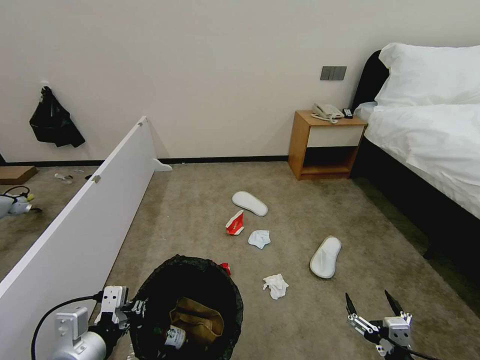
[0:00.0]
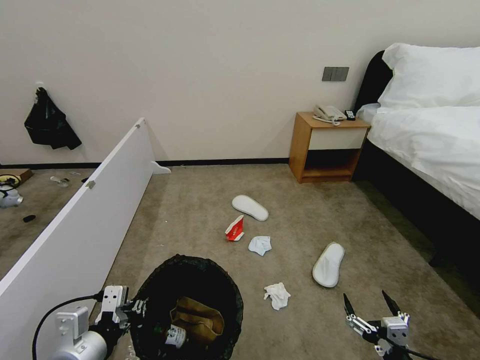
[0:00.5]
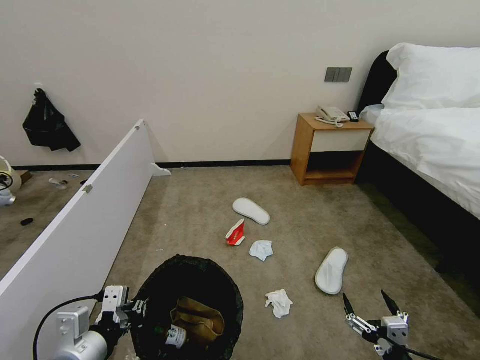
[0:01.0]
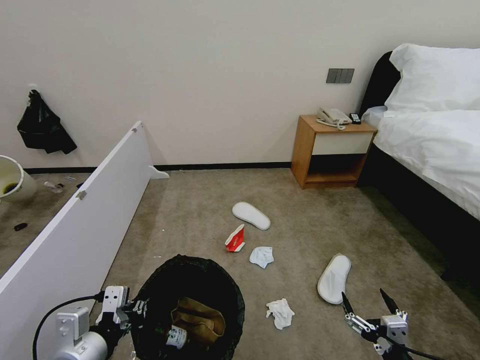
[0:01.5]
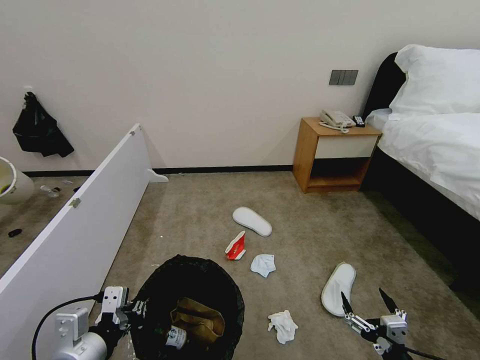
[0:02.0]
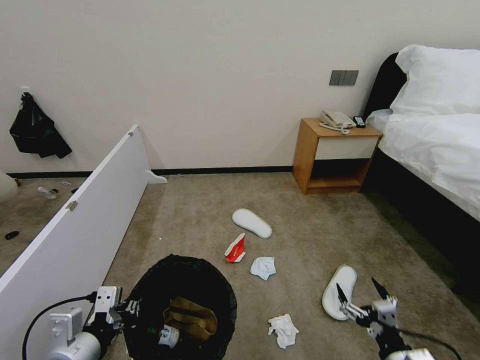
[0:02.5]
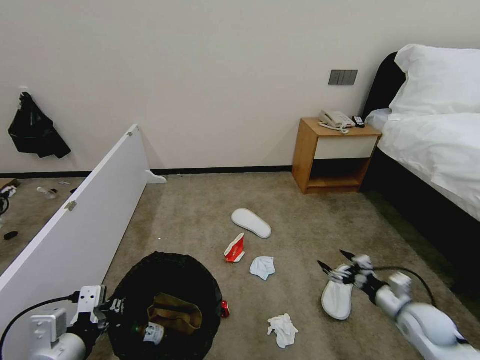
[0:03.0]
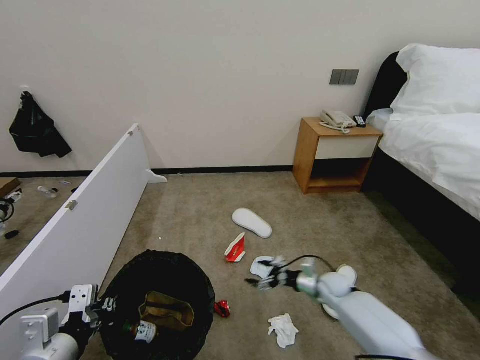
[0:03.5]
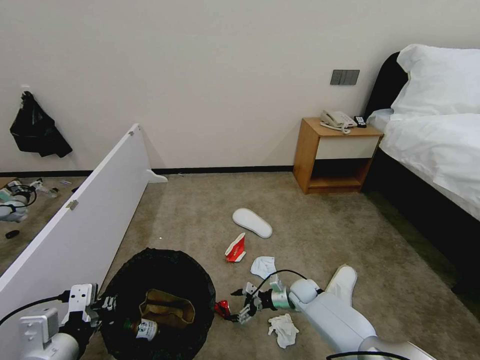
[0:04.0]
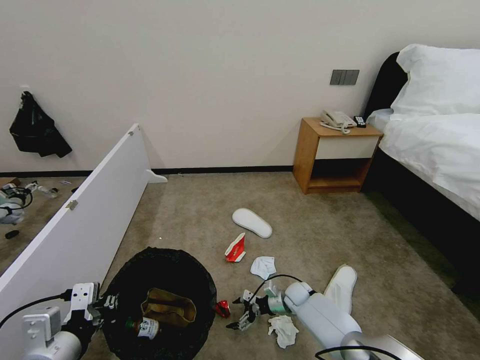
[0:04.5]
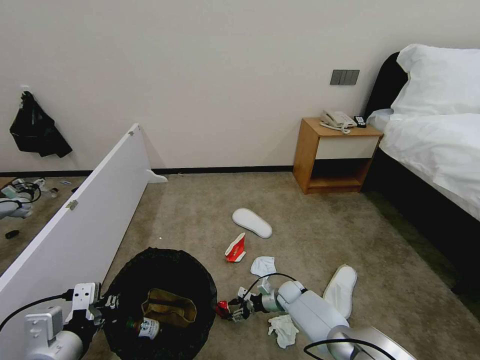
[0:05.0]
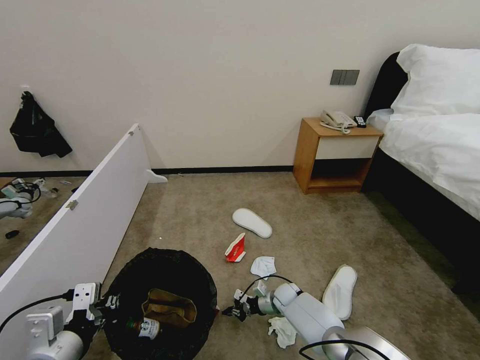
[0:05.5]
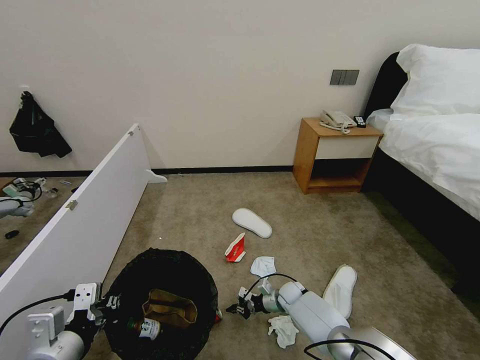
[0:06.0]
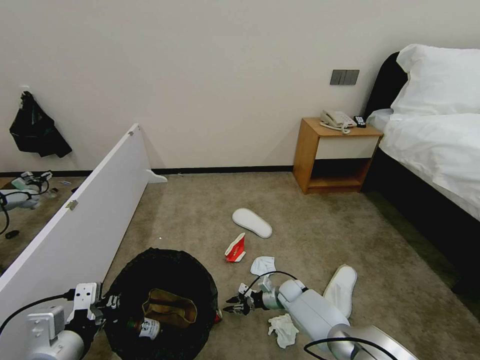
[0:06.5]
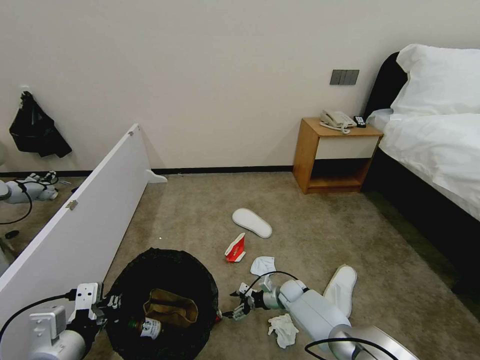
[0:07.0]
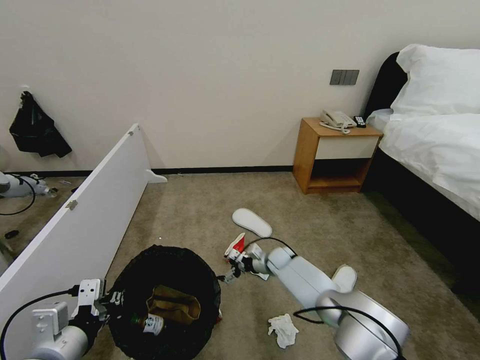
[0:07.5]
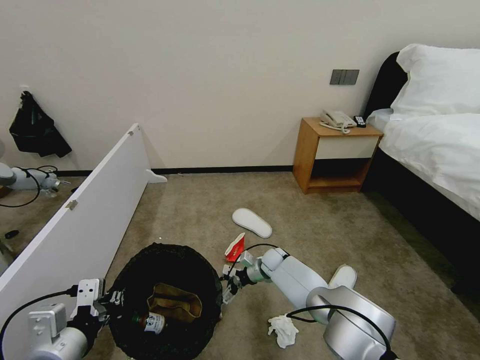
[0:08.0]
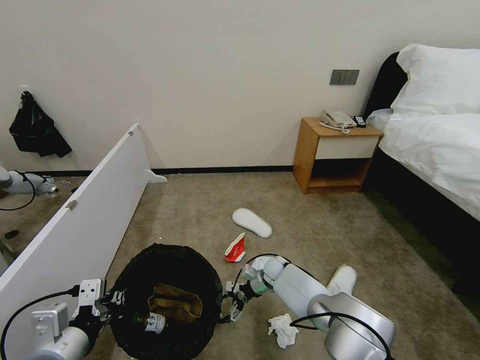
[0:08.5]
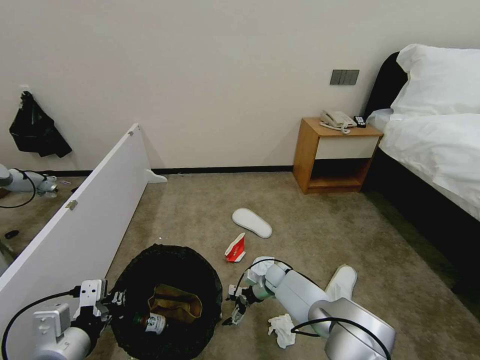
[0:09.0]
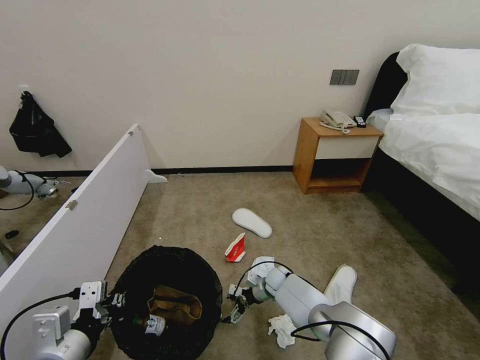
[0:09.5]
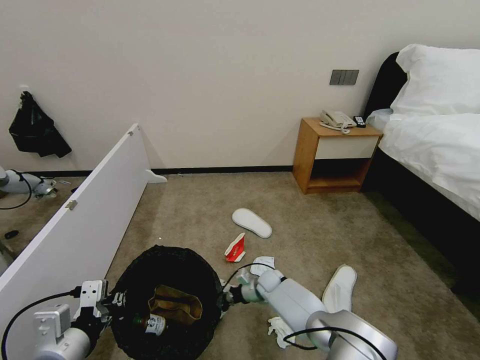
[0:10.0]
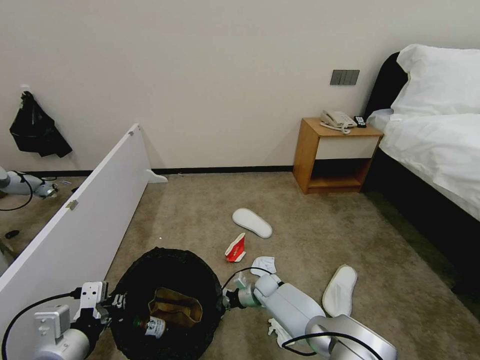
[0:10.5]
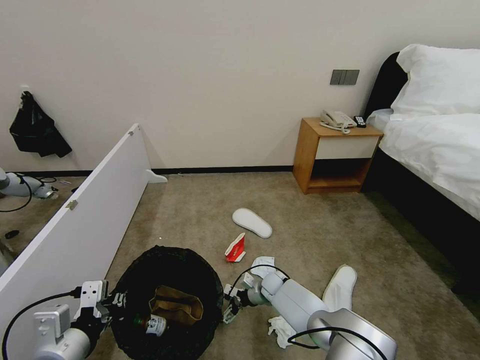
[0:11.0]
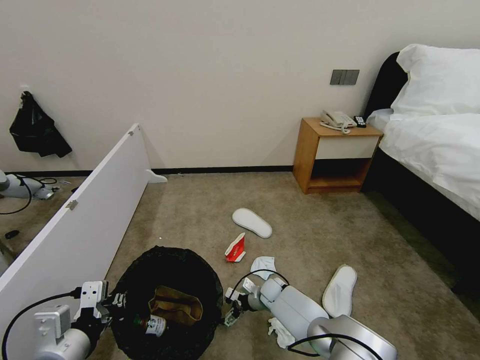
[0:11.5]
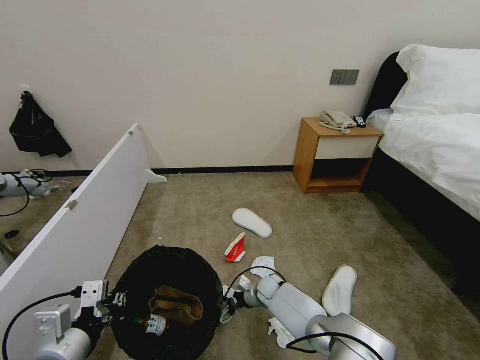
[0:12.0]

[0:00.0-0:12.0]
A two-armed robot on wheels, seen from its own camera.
Task of the whole recording: Pick up the trash bin, then pick up the garbage from the floor and place it into the trash bin.
0:00.0 to 0:02.0: Both grippers stay put.
0:02.0 to 0:04.0: The right gripper travels forward and downward by approximately 35 cm.
0:04.0 to 0:06.0: The right gripper closes.
0:06.0 to 0:08.0: The right gripper is displaced upward, forward and to the left by about 15 cm, and opens.
0:08.0 to 0:10.0: The right gripper goes about 5 cm backward and downward.
0:10.0 to 0:12.0: The grippers stay close to where they were, moving slightly.

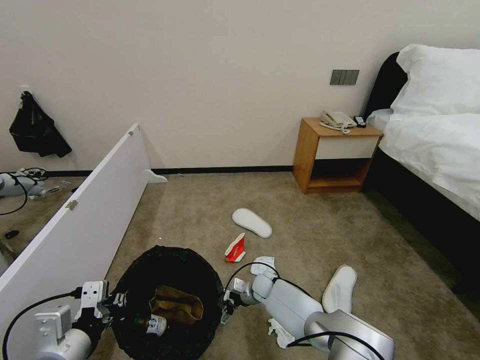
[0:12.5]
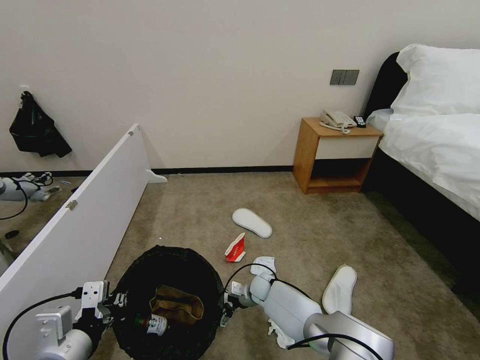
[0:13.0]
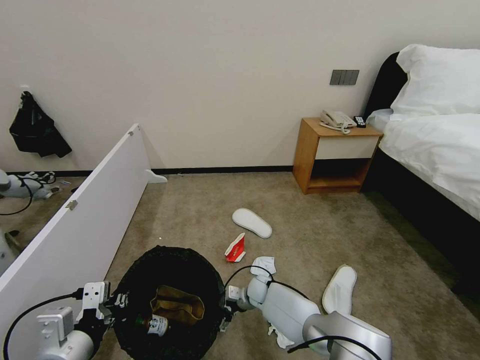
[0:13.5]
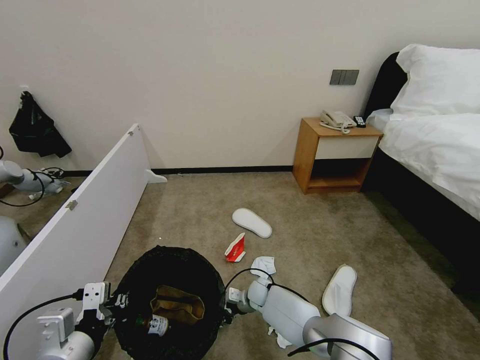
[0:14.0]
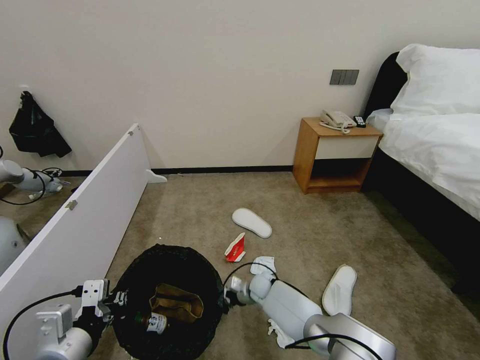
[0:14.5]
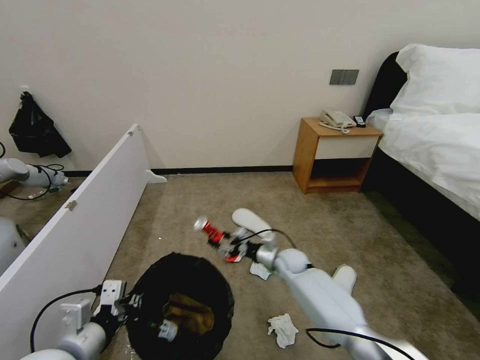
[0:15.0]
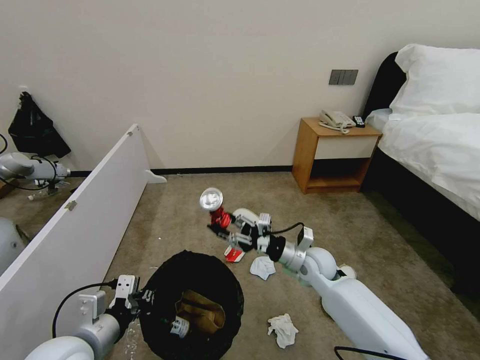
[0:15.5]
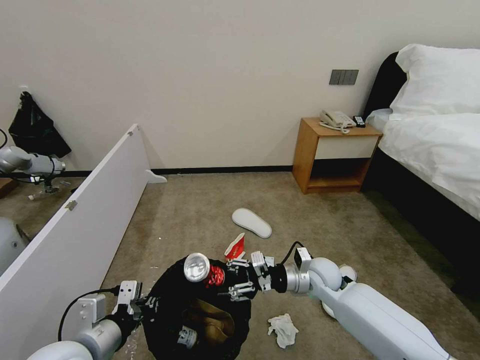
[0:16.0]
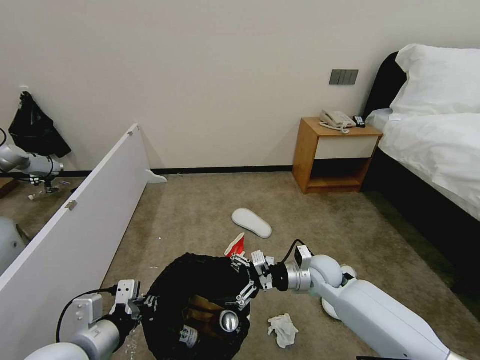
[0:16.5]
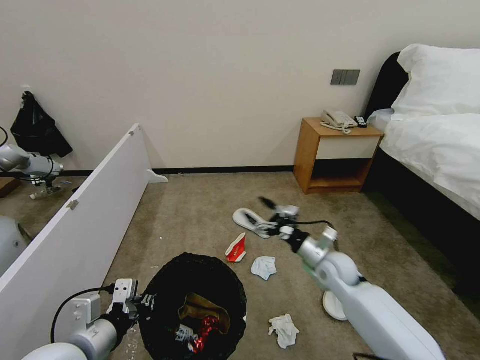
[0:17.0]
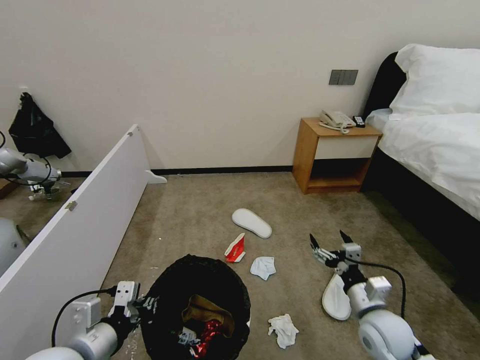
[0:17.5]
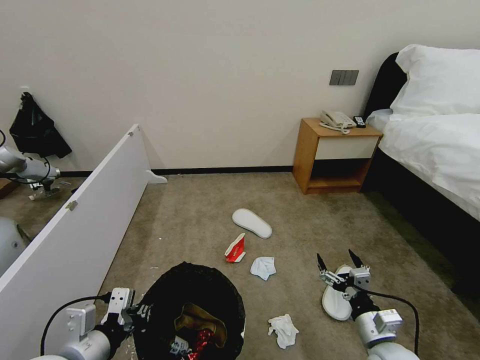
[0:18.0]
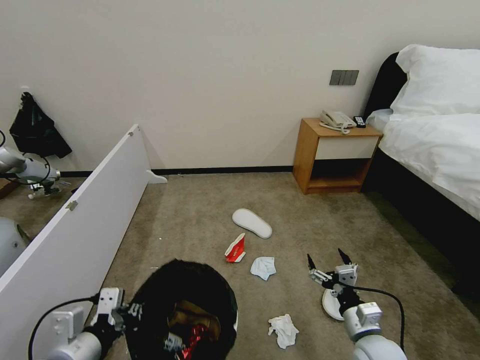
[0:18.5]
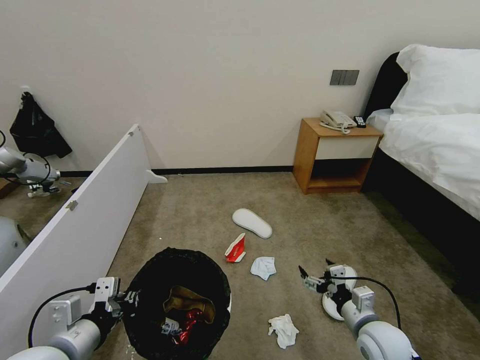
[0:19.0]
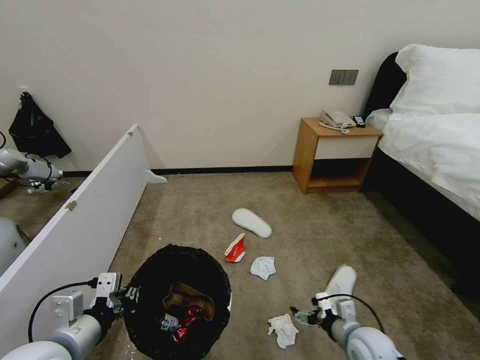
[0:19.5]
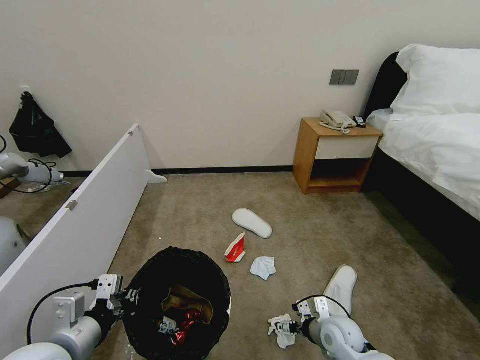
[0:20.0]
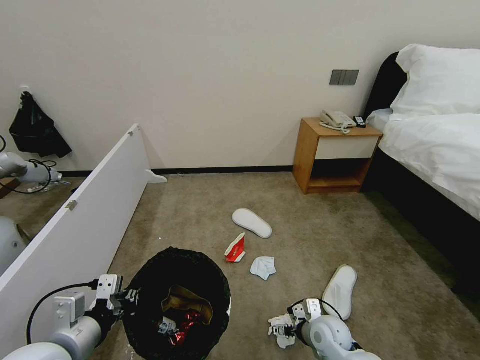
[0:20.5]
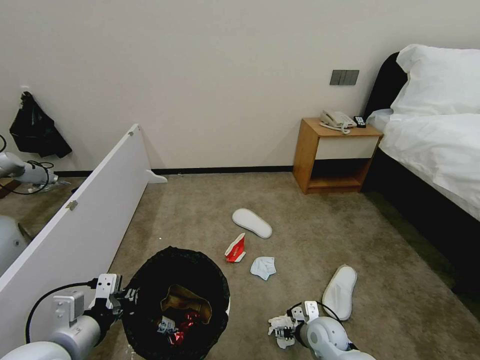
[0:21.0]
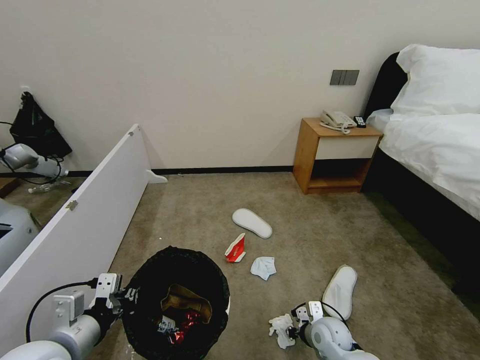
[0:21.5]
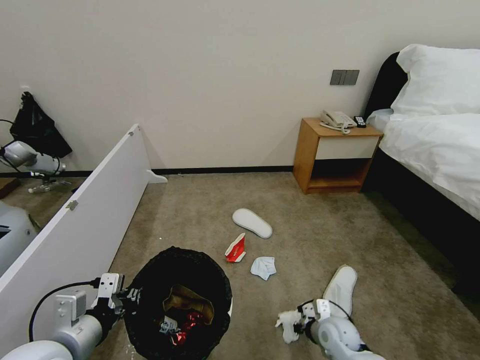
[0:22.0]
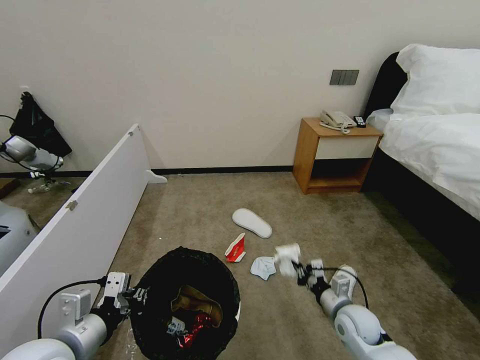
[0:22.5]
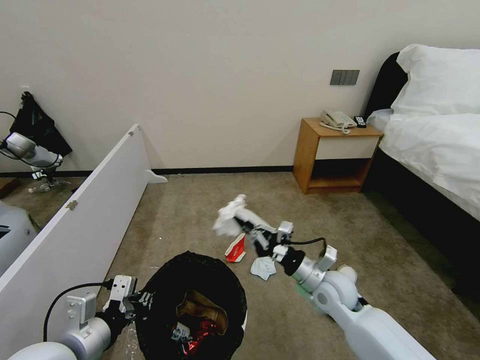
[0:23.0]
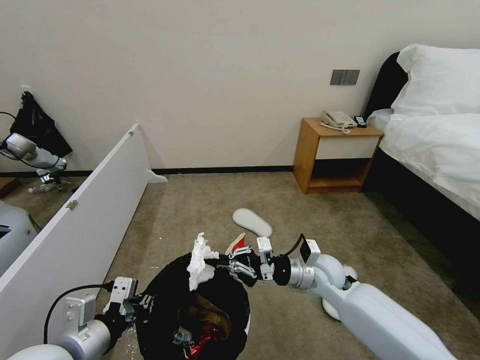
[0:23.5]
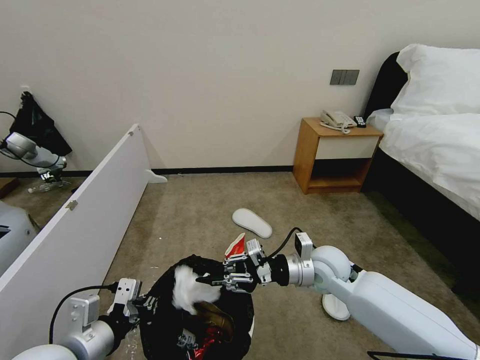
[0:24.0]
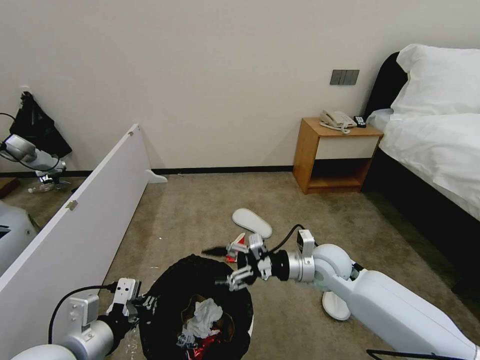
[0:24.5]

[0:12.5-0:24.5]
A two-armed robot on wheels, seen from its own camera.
Task of the whole recording: Pick up the trash bin, then pick up the garbage from the floor and place it into the trash bin.
0:12.5 to 0:14.5: The right gripper closes.
0:14.5 to 0:16.5: The right gripper goes about 20 cm upward and to the right, and opens up.
0:16.5 to 0:18.5: The right gripper shifts about 20 cm backward and to the right.
0:18.5 to 0:20.5: The right gripper shifts roughly 10 cm forward, to the left and downward.
0:20.5 to 0:22.5: The right gripper shifts approximately 5 cm to the right, and closes up.
0:22.5 to 0:24.5: The right gripper moves upward, to the left and forward, some 20 cm, and opens up.

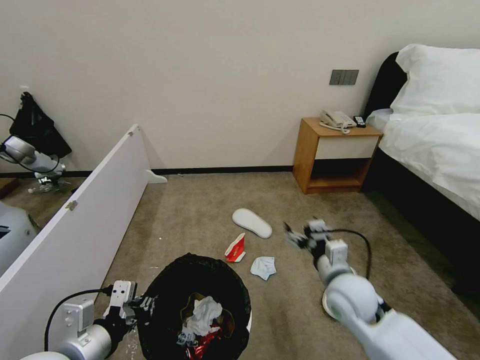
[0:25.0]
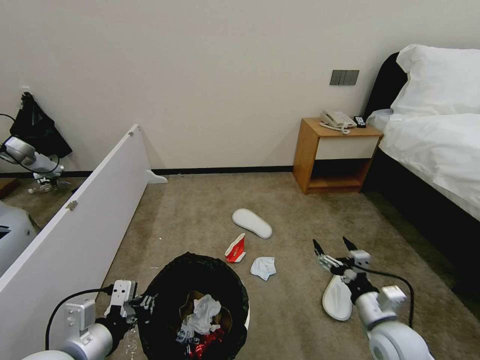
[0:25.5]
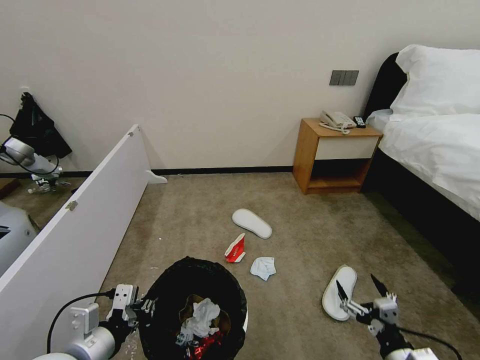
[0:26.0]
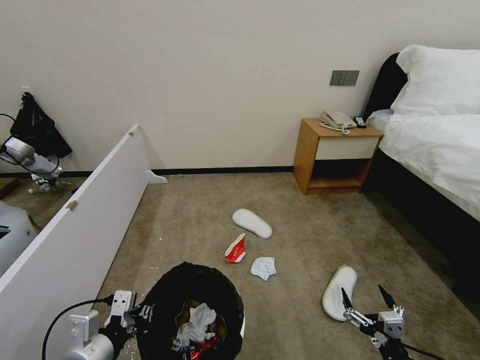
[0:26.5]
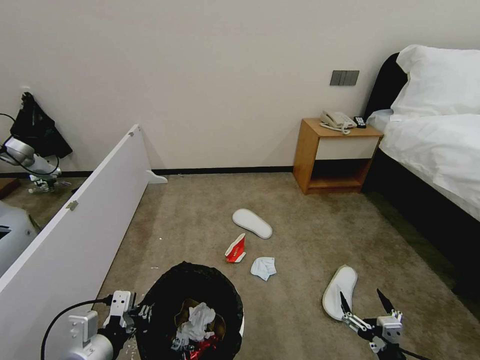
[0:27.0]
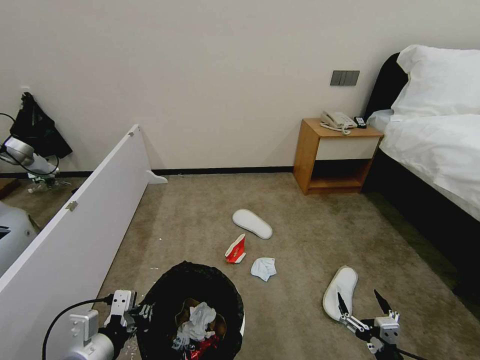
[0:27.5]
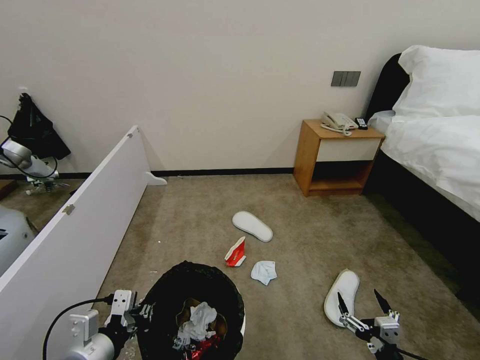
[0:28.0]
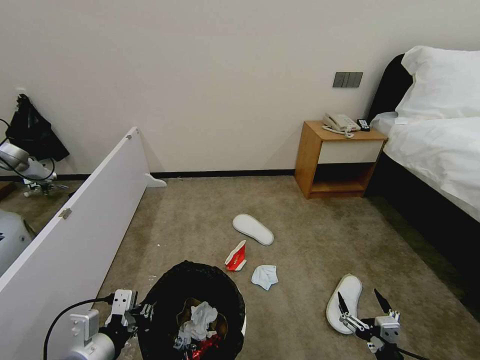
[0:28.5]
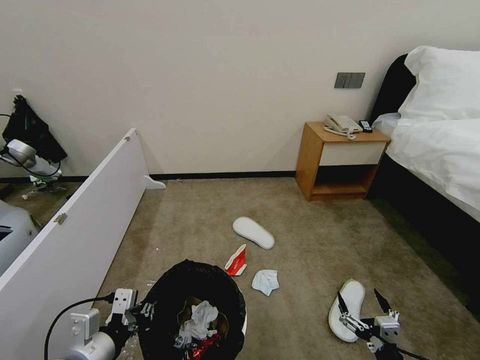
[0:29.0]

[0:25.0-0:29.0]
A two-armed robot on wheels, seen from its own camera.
Task of the whole recording: Pick up the trash bin, then pick up the garbage from the floor and place it into the trash bin.
0:25.0 to 0:27.0: The right gripper heads backward, downward and to the right, covering about 25 cm.
0:27.0 to 0:29.0: The two grippers keep their place.
